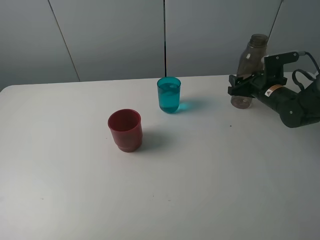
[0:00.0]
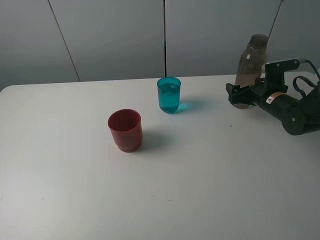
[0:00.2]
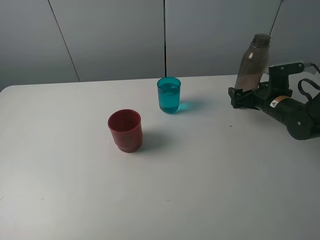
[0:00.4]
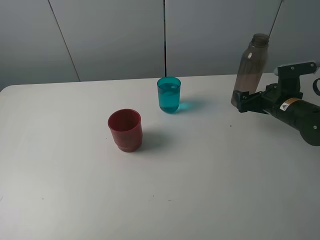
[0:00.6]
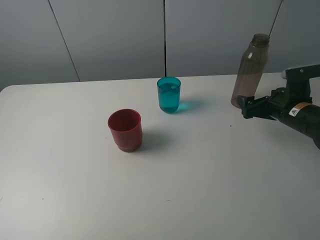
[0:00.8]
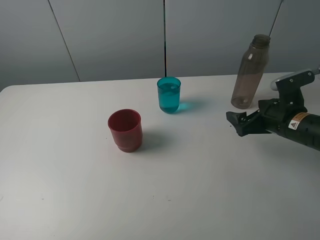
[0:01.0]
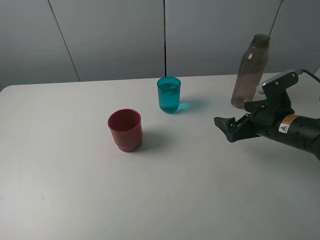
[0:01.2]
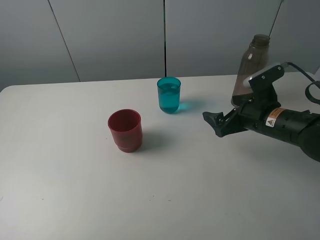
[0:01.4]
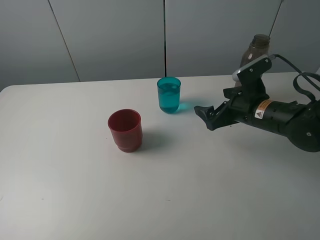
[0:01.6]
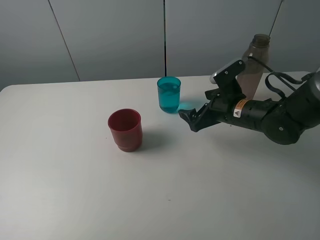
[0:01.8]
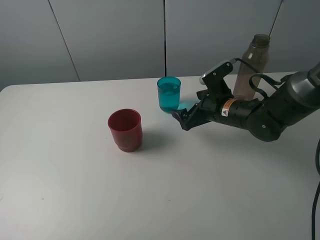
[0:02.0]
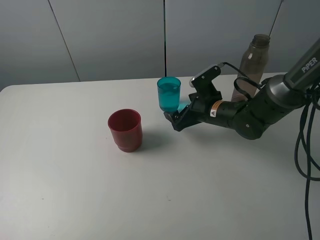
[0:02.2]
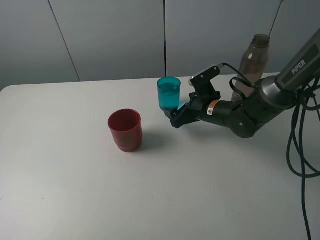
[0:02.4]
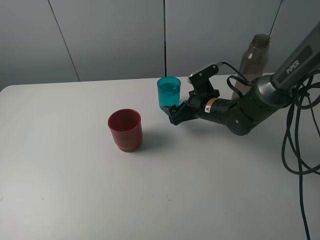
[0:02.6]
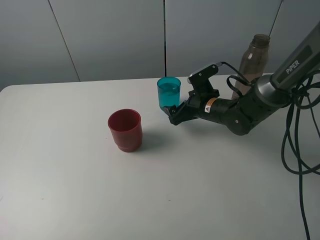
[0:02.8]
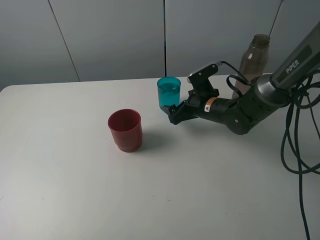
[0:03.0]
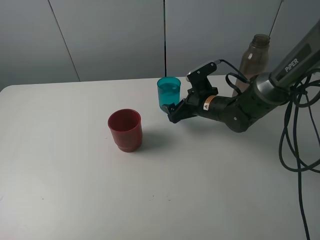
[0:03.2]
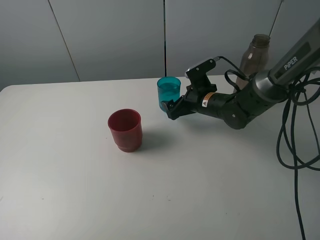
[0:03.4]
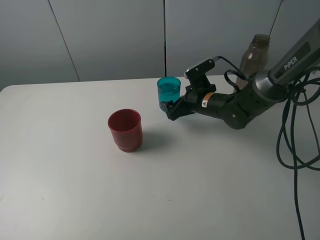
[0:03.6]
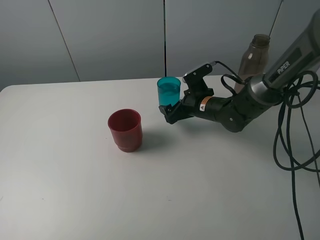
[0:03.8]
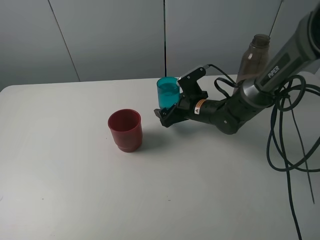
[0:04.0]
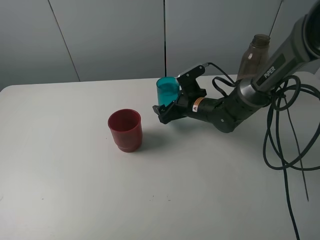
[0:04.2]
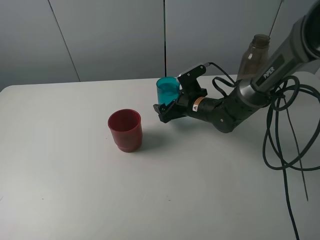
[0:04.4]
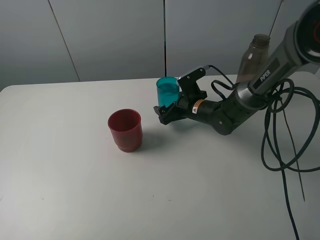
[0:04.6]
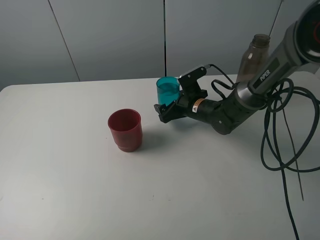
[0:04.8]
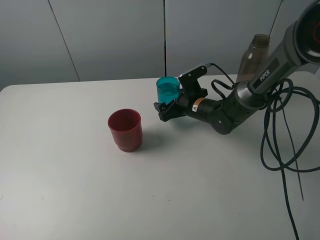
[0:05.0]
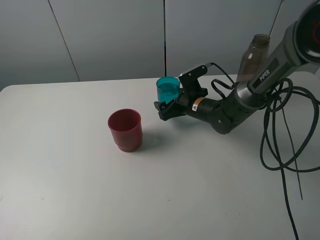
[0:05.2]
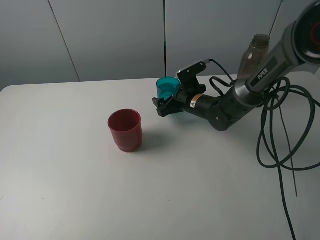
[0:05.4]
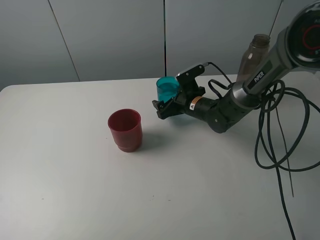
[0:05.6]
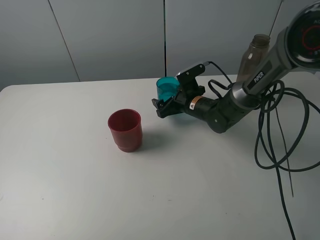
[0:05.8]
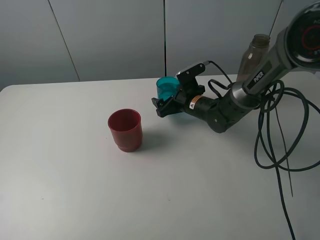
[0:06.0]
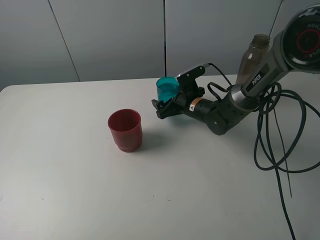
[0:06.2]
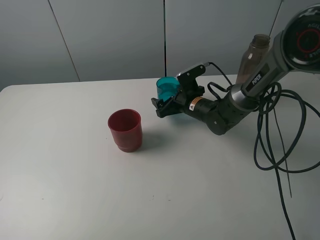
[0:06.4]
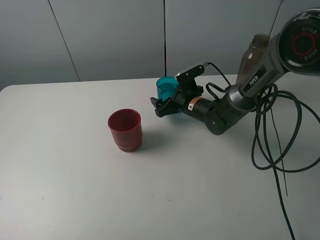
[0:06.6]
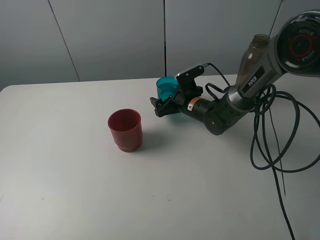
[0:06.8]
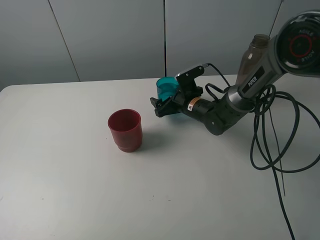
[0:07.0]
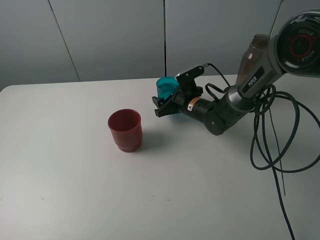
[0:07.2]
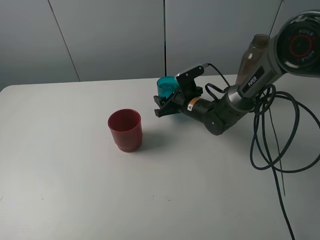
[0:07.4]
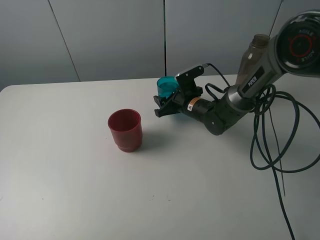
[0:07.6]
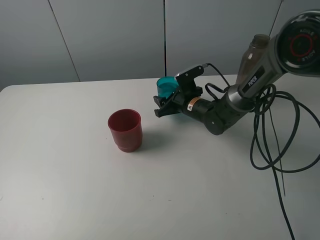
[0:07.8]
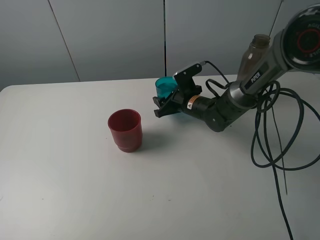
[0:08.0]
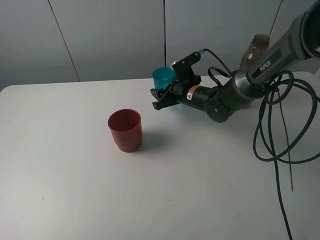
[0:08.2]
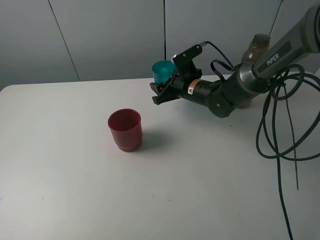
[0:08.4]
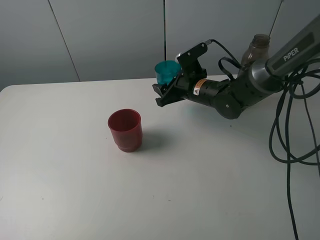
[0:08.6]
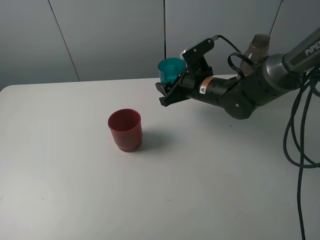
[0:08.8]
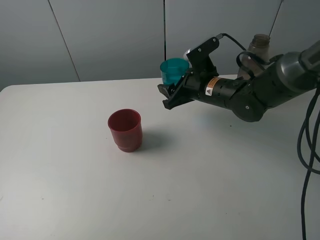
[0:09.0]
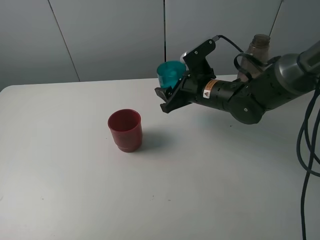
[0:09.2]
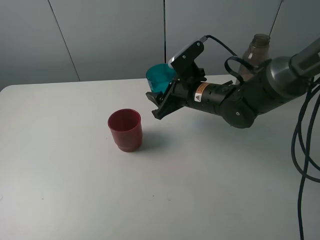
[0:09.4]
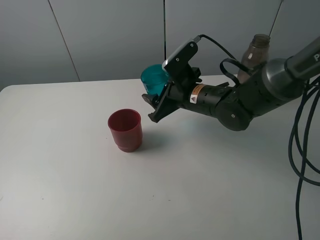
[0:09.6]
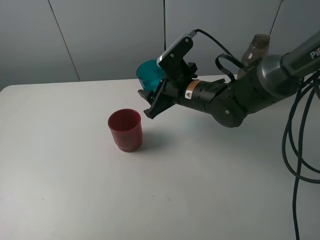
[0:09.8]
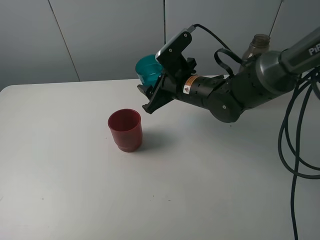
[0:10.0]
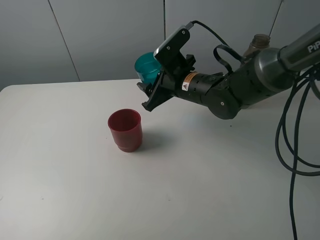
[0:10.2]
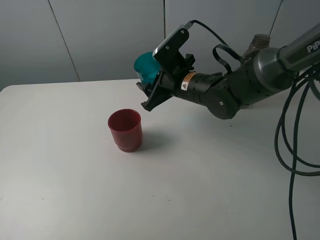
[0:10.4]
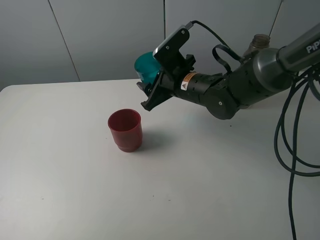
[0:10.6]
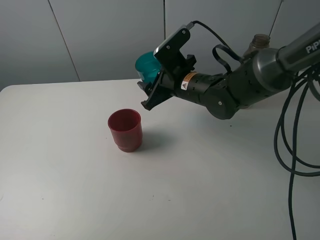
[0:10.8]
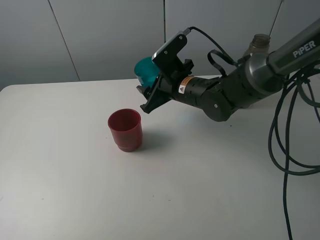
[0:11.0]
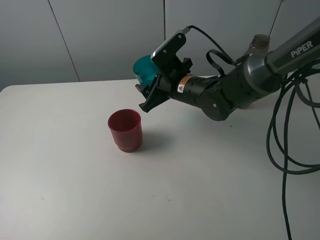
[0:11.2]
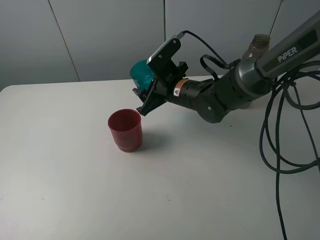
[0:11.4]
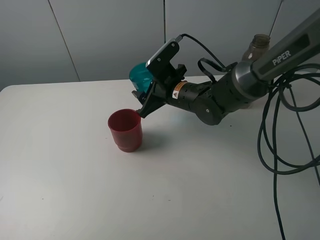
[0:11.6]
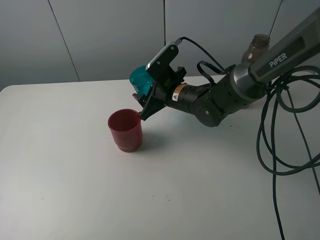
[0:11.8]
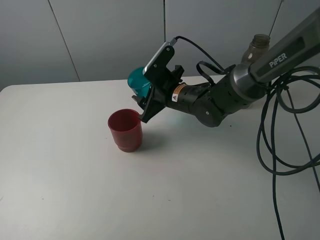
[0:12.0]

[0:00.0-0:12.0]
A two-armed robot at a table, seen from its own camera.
Task of the whole recording: pick up the bottle and pour water into the cup, then pick up the cup containing water and pour it into another cup.
Step, 0:00.2 to 0:07.2: Grasp the blue cup with the right gripper.
0:00.0 to 0:01.6: The right gripper shifts about 15 cm backward and to the left, and opens its fingers.
0:01.6 to 0:03.0: The right gripper moves forward, to the left and downward, approximately 10 cm.
0:03.0 to 0:06.0: The grippers stay close to where they were, moving slightly.
0:06.0 to 0:07.6: The right gripper closes its fingers.
0:07.6 to 0:09.0: The right gripper travels upward and backward by some 10 cm.
0:09.0 to 0:10.4: The right gripper moves to the left, approximately 5 cm.
0:10.4 to 0:12.0: There are only small adjustments of the grippers.

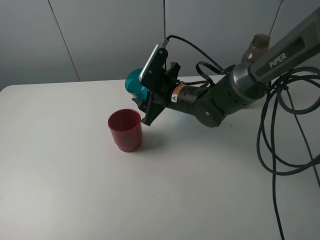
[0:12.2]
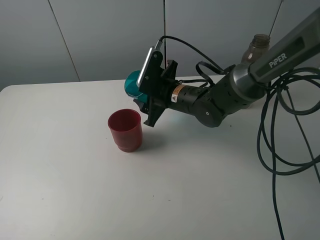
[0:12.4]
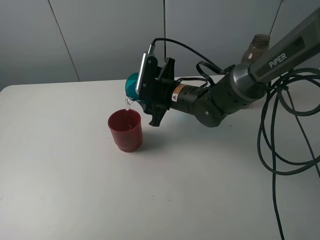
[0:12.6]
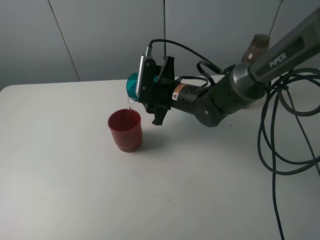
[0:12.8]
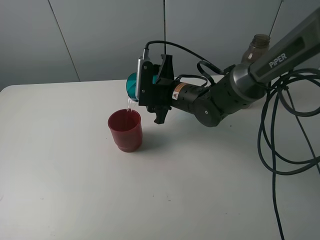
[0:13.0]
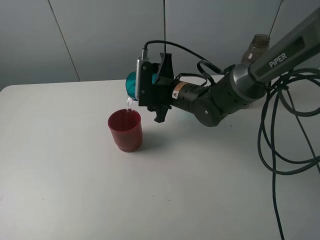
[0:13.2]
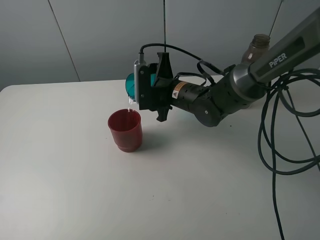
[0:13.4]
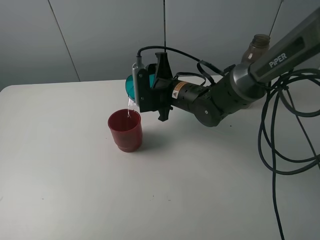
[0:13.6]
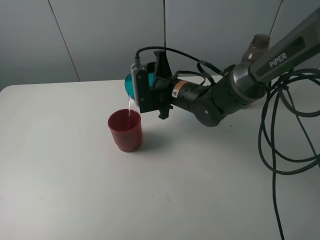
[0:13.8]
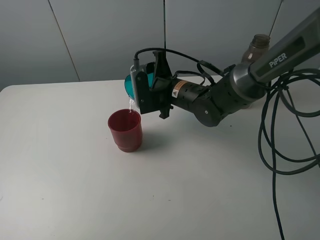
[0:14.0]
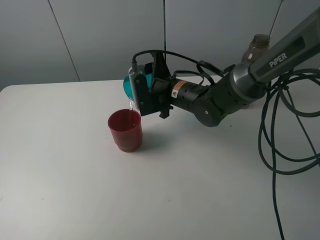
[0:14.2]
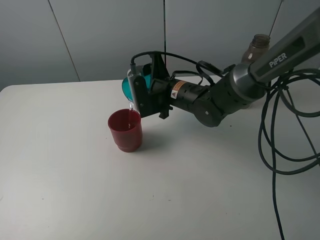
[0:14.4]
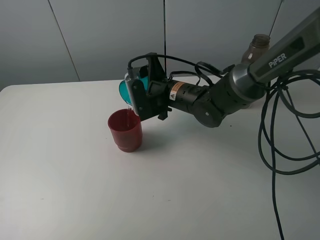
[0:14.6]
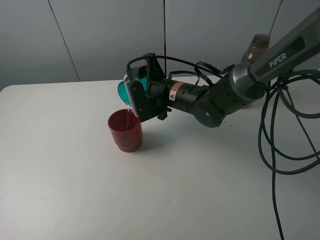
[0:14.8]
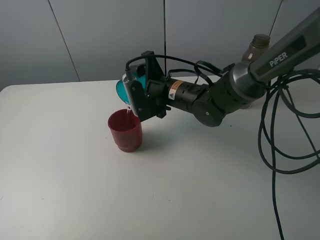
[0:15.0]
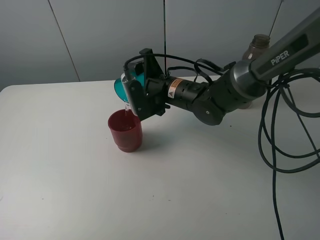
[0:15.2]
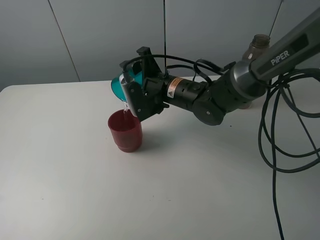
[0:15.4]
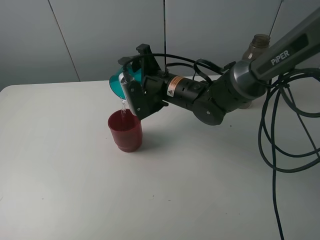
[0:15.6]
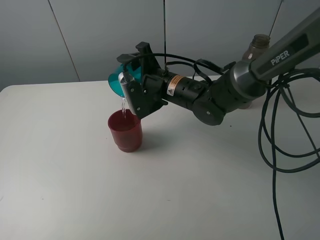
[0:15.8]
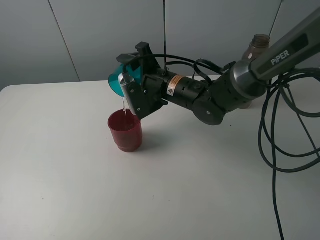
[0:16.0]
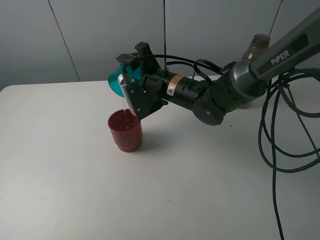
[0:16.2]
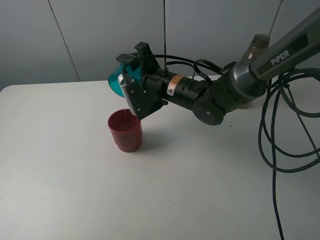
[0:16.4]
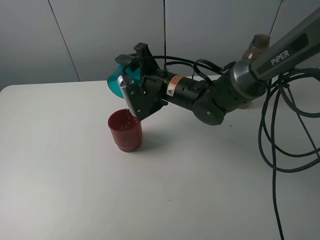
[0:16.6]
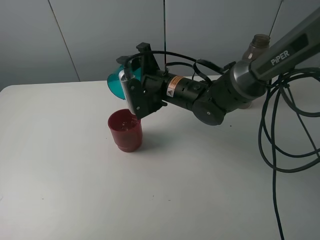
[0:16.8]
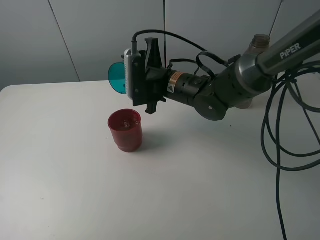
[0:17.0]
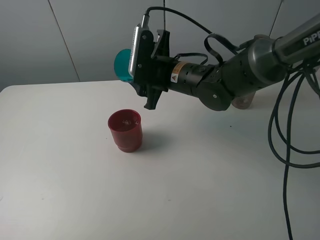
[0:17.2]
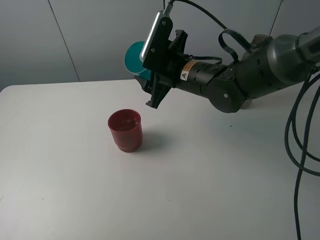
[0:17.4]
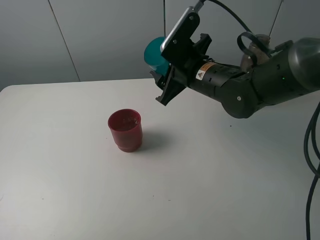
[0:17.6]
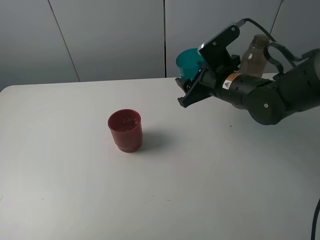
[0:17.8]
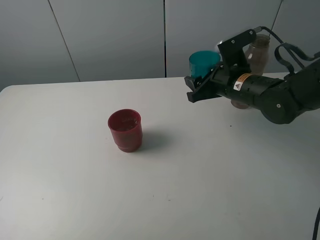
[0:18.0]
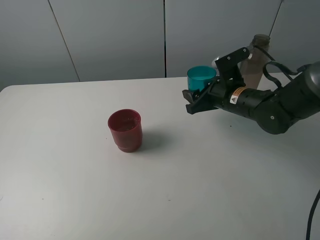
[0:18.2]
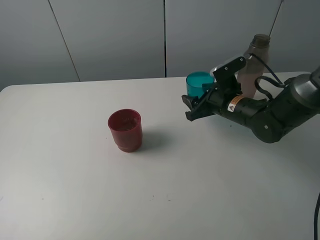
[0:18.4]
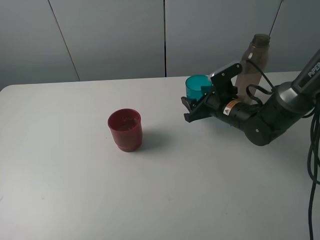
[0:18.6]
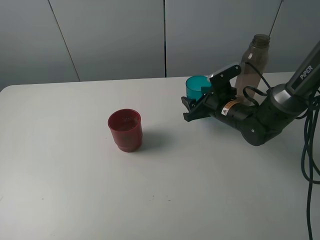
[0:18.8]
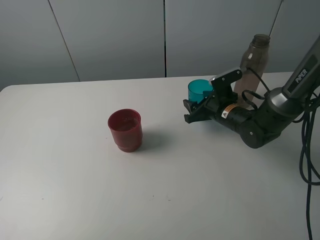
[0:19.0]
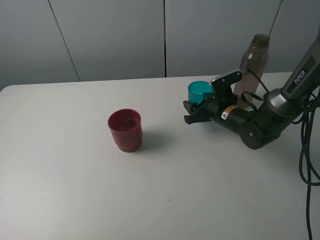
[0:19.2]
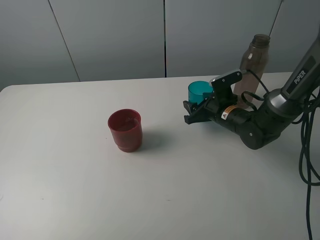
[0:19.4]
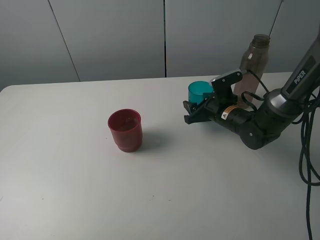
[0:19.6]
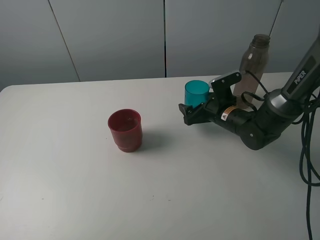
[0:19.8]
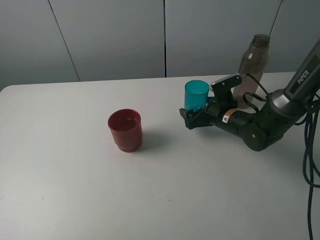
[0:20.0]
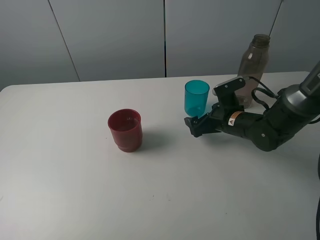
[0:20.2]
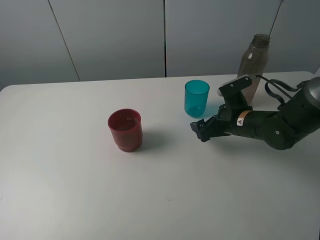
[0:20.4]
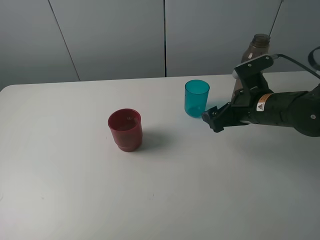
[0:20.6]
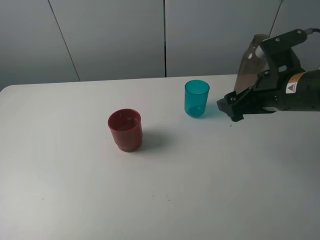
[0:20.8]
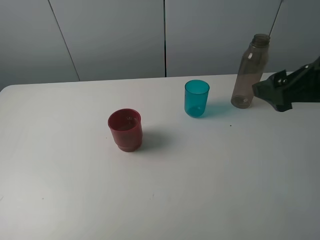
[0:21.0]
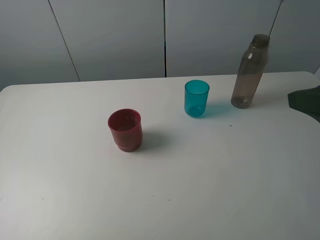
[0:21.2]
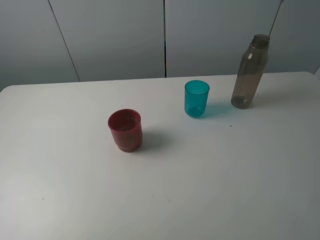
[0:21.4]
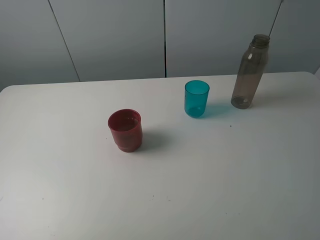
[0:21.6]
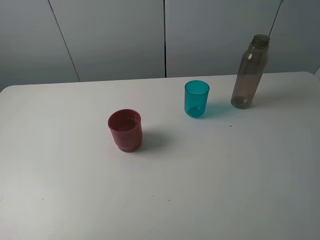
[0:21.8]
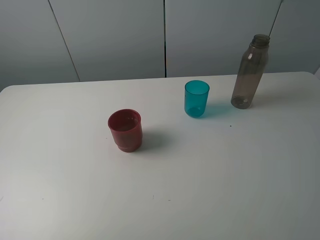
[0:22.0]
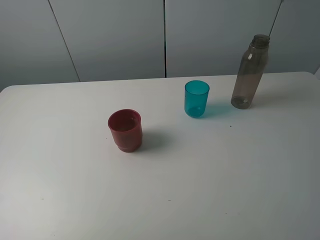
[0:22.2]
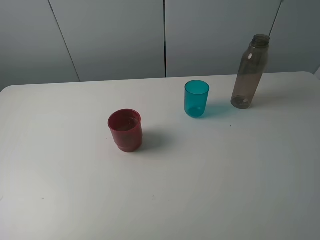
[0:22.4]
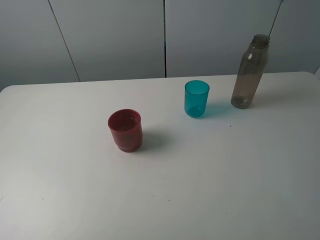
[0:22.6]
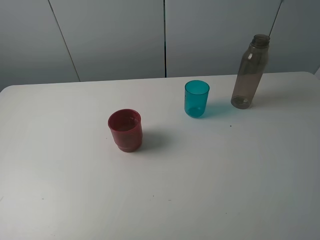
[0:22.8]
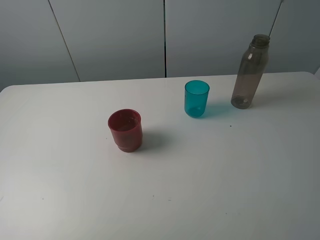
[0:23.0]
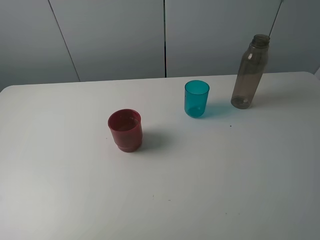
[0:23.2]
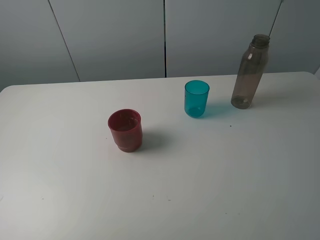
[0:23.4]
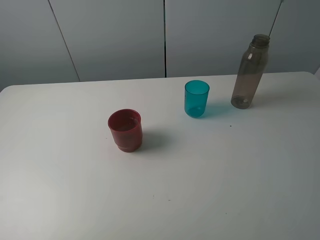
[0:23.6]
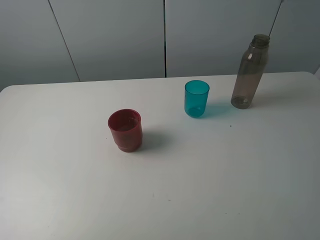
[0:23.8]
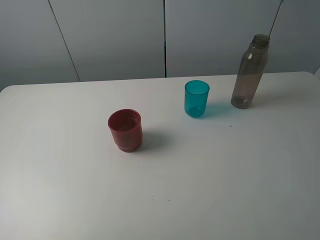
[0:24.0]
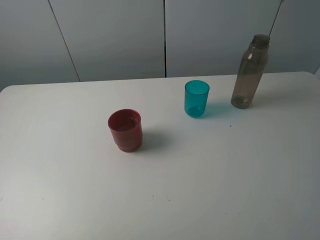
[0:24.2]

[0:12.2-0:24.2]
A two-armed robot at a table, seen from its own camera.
Task of the whole recording: pick up the bottle and pour water into the cup, then pick up the cup containing water and pour it into another cup.
Step, 0:12.2 to 0:16.6: Pour water from blue cup to red cup with the right gripper.
Step, 0:16.8 to 0:20.0: Place the blue cup with the right gripper.
0:13.8 to 0:15.2: The grippers move only a little.
0:15.2 to 0:16.6: The grippers stay close to where they were, moving slightly.
0:16.6 to 0:18.2: The right gripper heads to the right, covering roughly 15 cm.
0:18.2 to 0:19.8: The right gripper moves downward, roughly 5 cm, and opens.
0:19.8 to 0:21.2: The right gripper shifts approximately 35 cm upward, backward and to the right.
0:21.2 to 0:22.6: The right gripper shifts about 10 cm backward.
0:22.6 to 0:24.2: Both grippers stay put.
